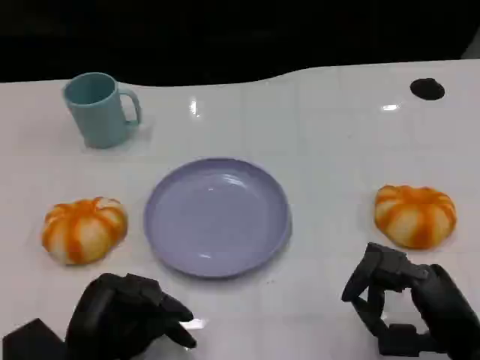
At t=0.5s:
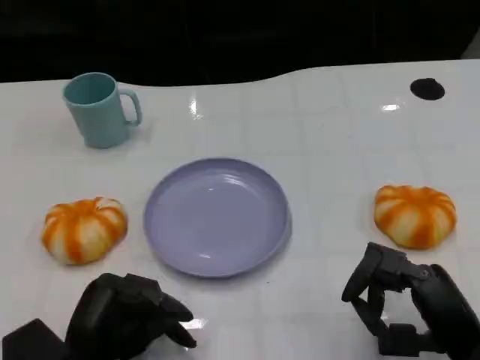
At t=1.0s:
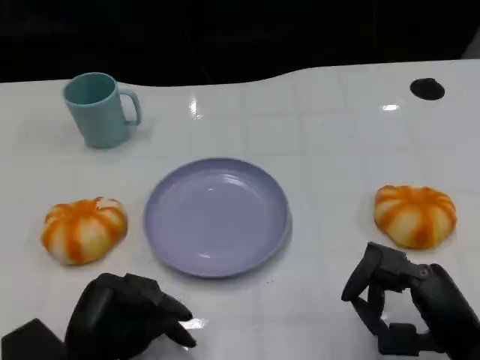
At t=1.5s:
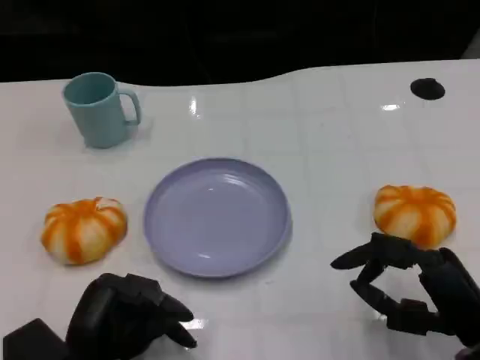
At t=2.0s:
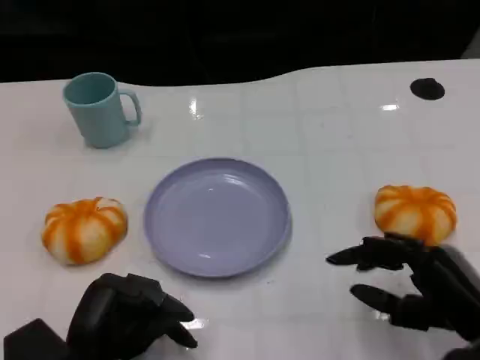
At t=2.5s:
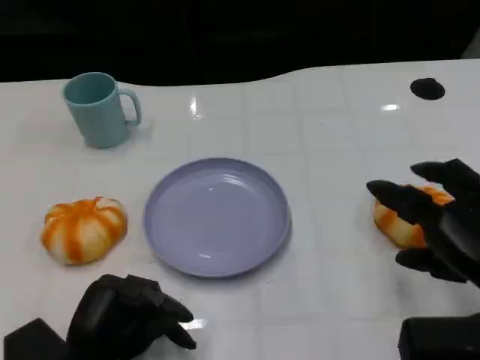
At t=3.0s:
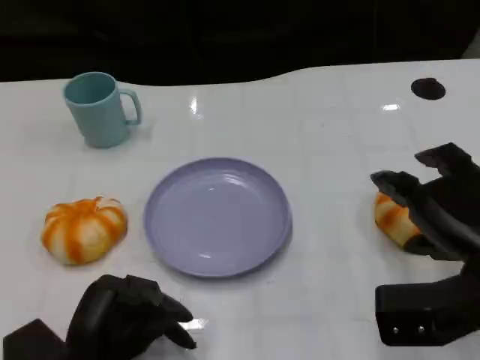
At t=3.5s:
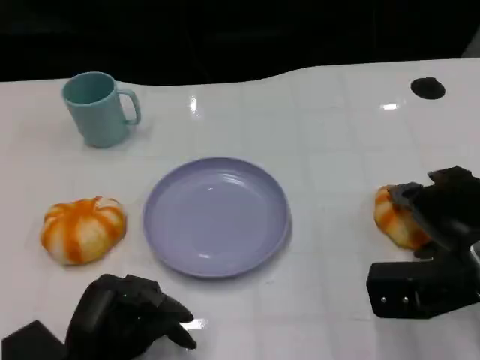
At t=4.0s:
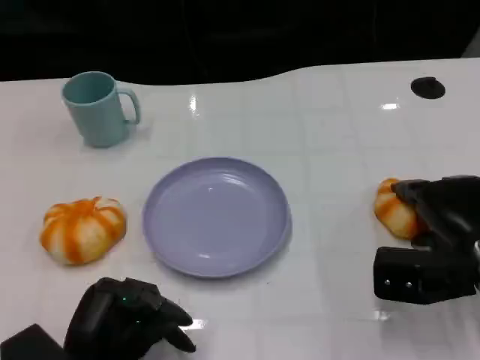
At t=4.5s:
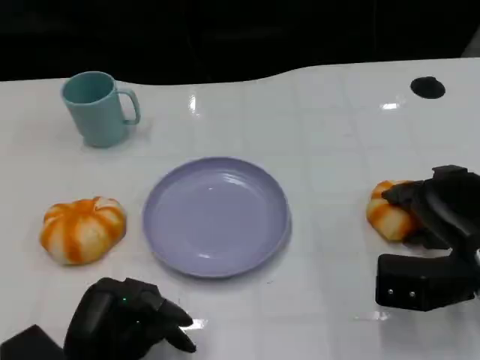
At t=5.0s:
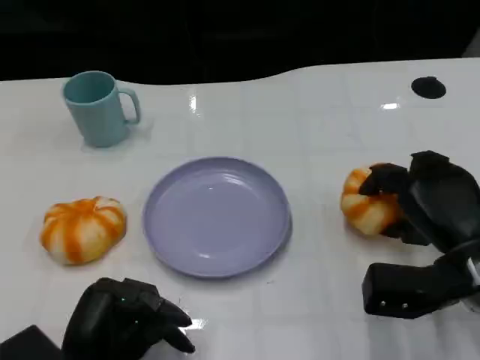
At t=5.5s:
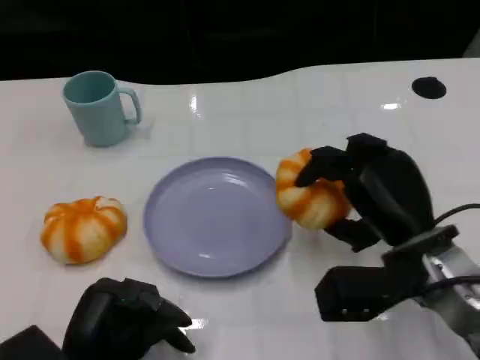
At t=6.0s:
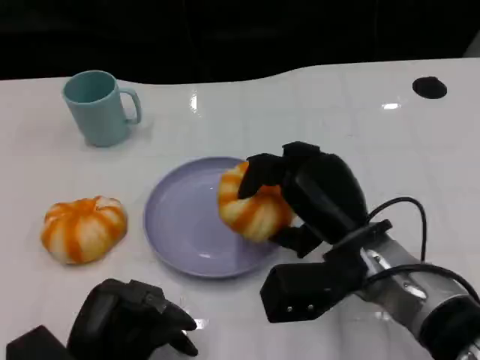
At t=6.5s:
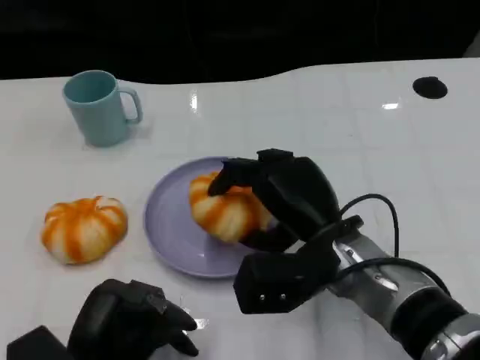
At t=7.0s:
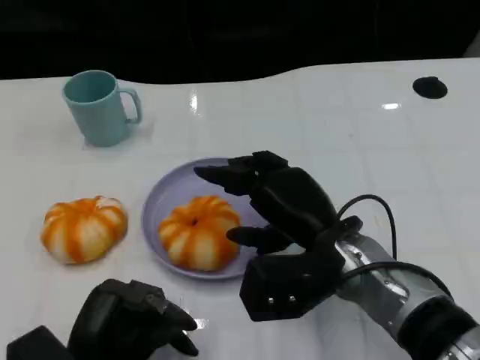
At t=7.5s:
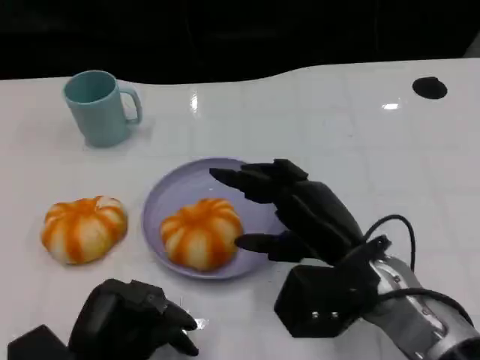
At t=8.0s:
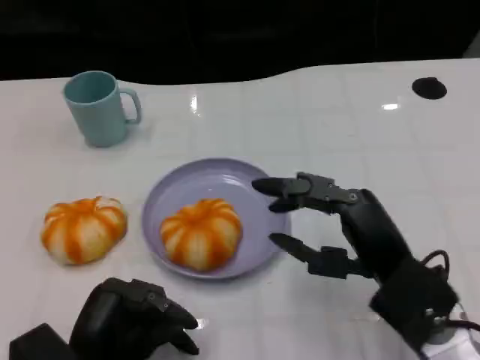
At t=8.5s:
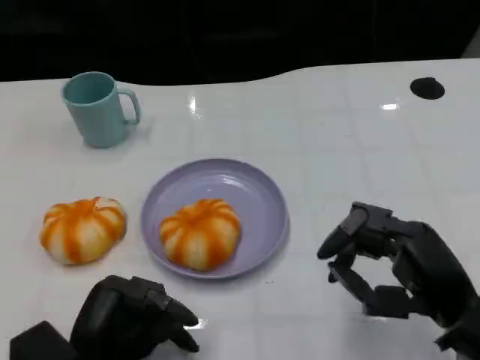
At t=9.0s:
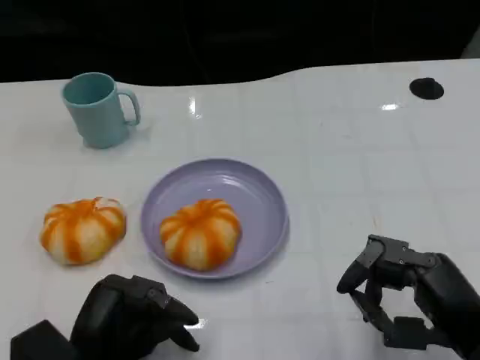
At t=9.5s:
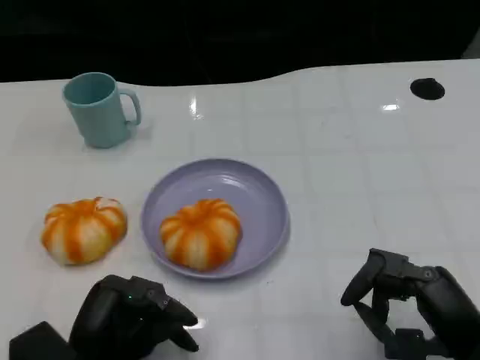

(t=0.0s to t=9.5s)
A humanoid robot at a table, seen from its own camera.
Task of the whole recording: Grasp the bread from the table and place it into the plate.
t=2.0s - t=4.0s: The right hand goes approximately 10 cm forward.
t=4.0s - t=5.5s: The right hand moves to the left, about 10 cm.
t=7.5s - t=9.5s: The right hand is displaced to the right and backward by about 15 cm.

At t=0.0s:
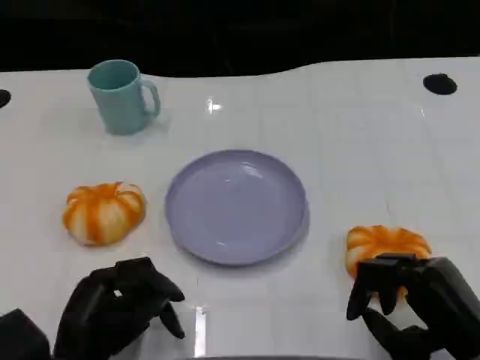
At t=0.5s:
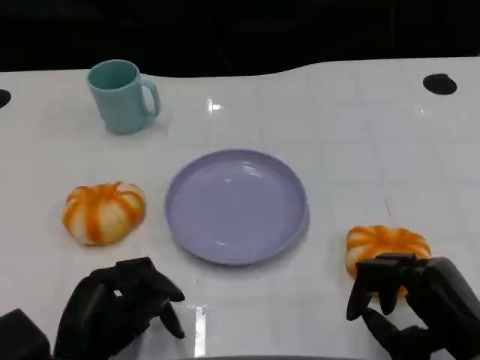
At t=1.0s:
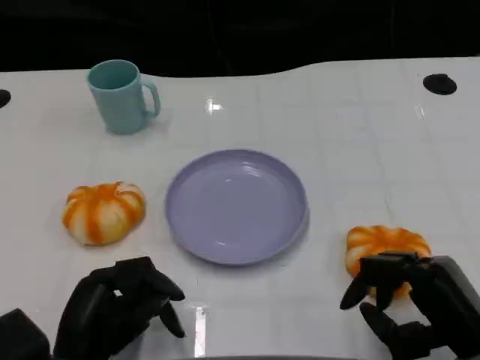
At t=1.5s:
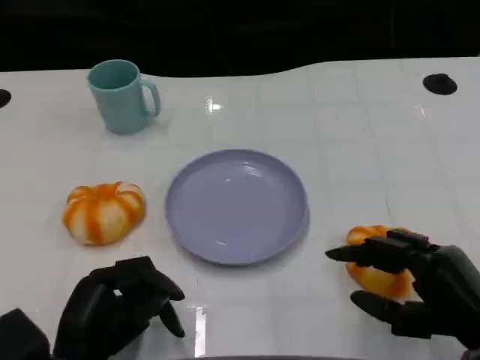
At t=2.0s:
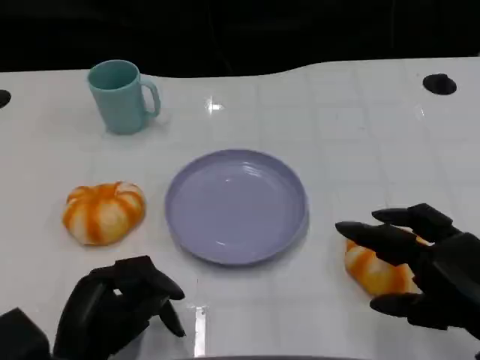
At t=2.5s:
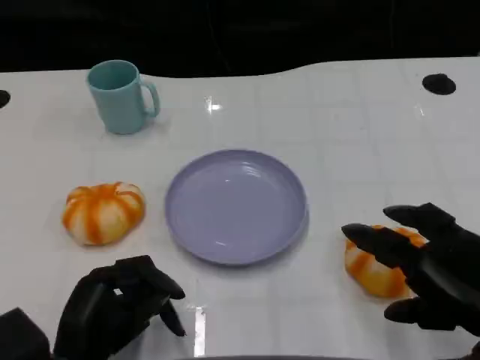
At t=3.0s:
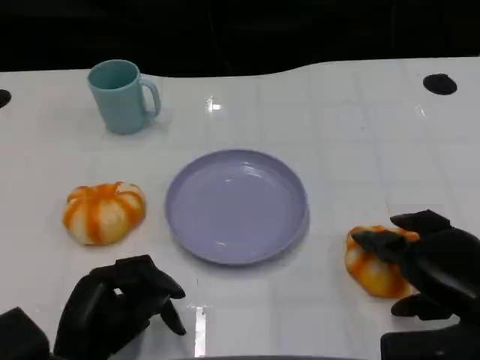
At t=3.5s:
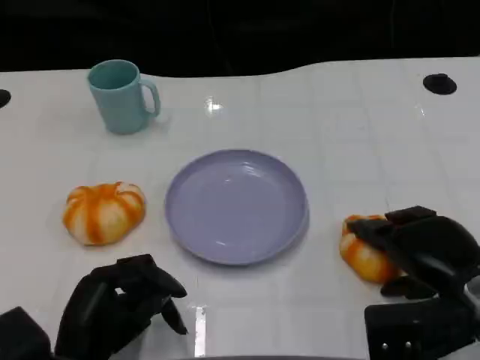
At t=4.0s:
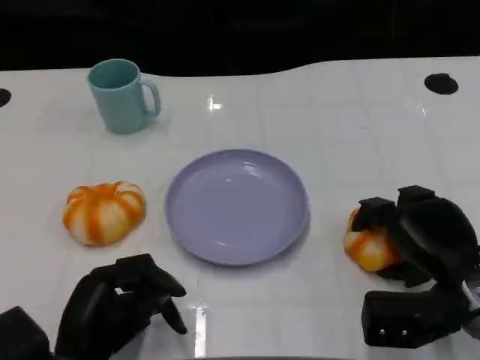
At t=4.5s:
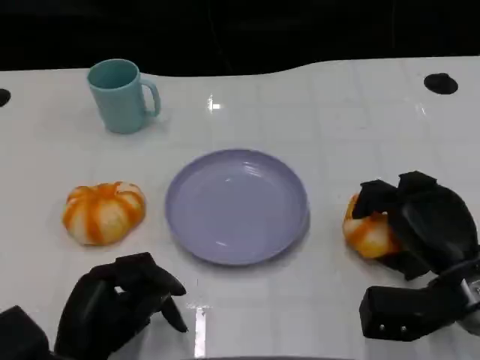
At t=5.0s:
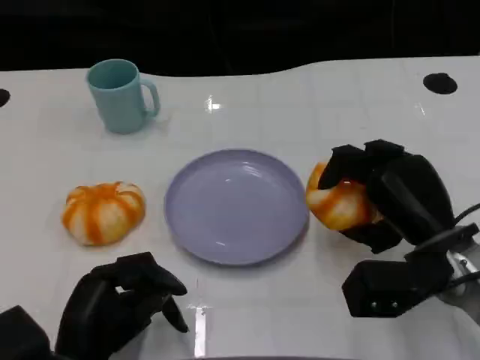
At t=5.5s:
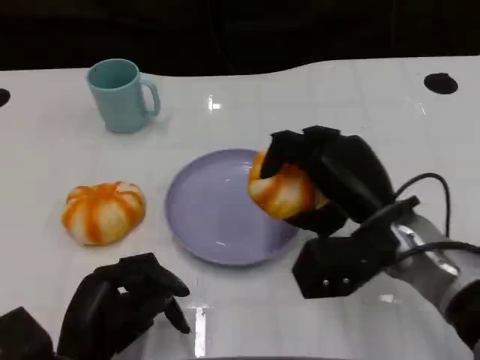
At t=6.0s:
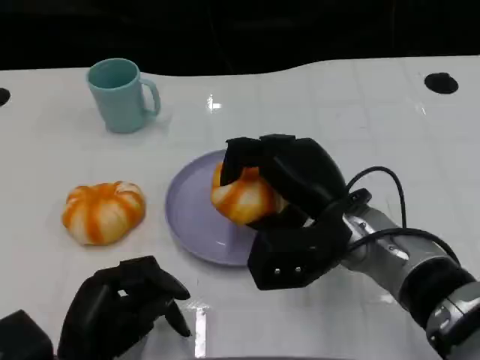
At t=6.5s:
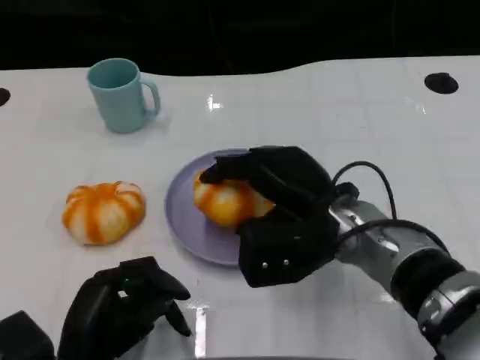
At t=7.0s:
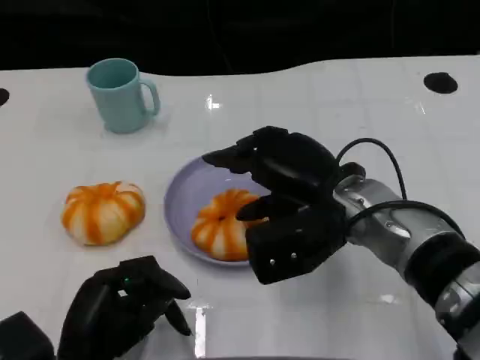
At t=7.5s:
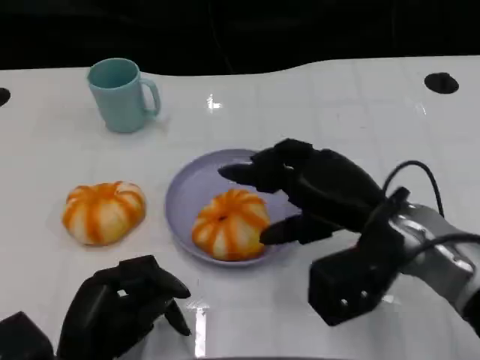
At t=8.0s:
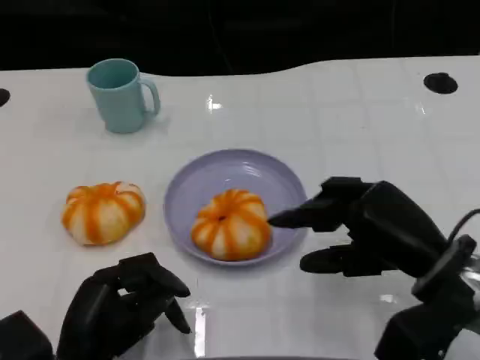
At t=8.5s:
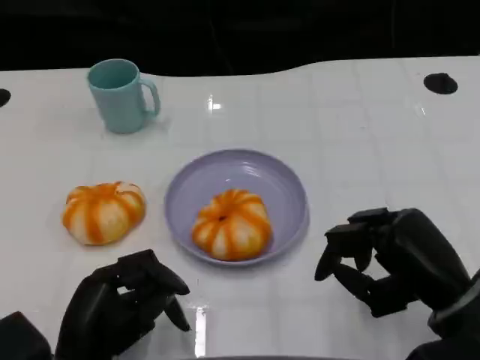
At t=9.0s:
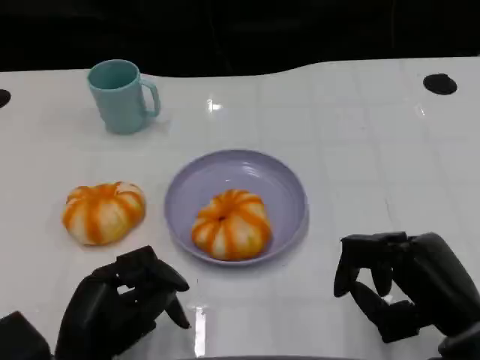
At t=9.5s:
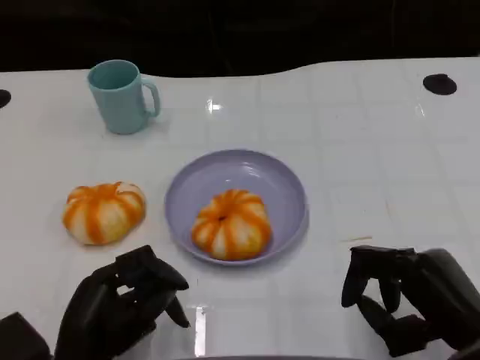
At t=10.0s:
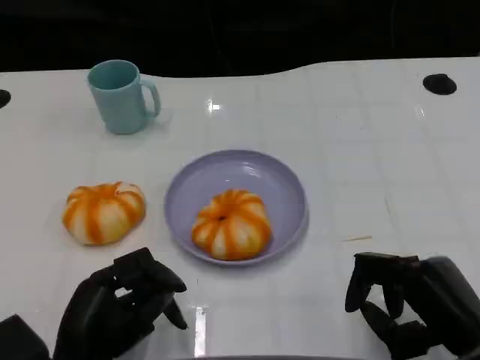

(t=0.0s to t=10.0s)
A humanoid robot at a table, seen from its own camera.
Task of the whole recording: Grasp the bread from the table and place it into the plate.
t=0.0s - t=2.0s: The right hand heads upward, covering some 5 cm.
t=2.0s - t=4.0s: The right hand heads forward and downward, covering some 10 cm.
t=4.0s - t=6.0s: The right hand moves to the left and upward, approximately 15 cm.
t=6.0s - t=8.0s: The right hand shifts approximately 10 cm to the right.
t=8.0s - t=10.0s: The right hand moves backward, approximately 5 cm.

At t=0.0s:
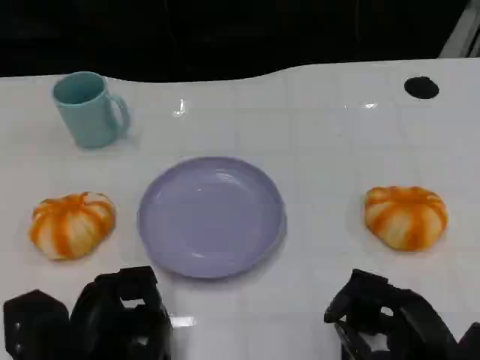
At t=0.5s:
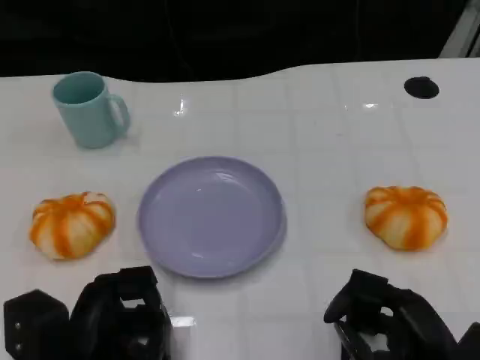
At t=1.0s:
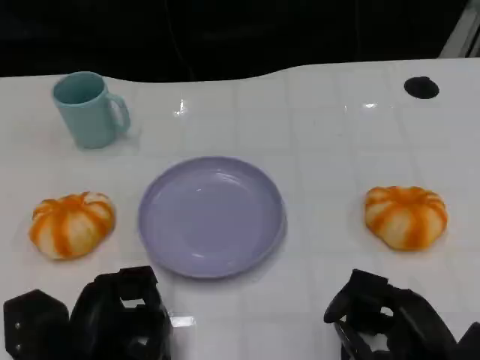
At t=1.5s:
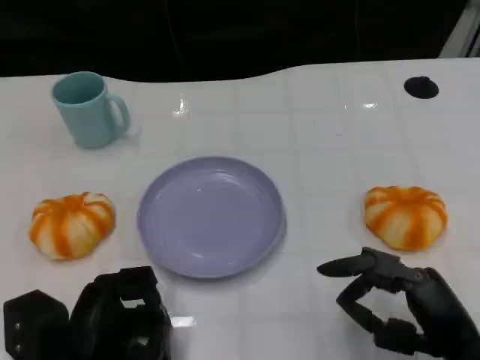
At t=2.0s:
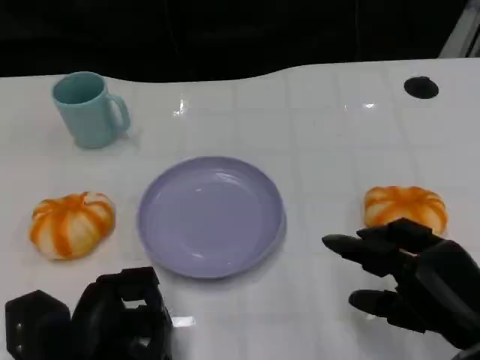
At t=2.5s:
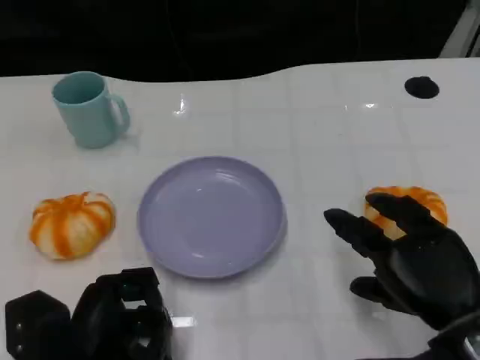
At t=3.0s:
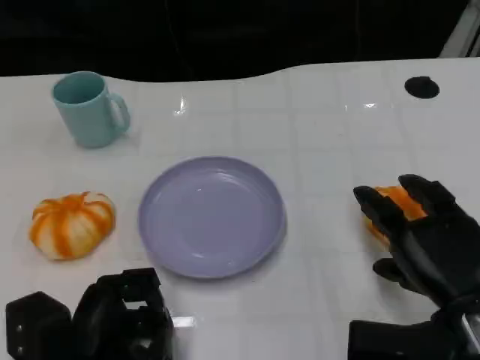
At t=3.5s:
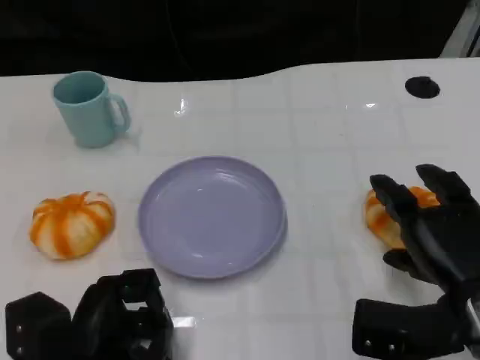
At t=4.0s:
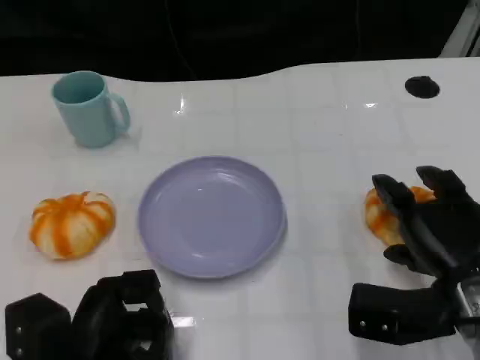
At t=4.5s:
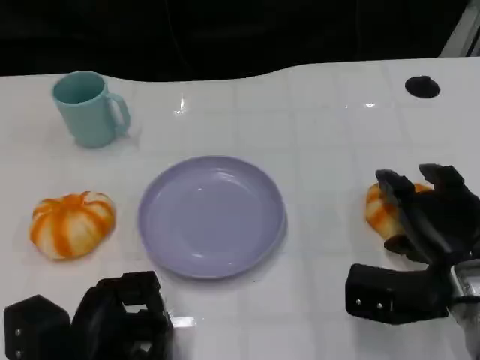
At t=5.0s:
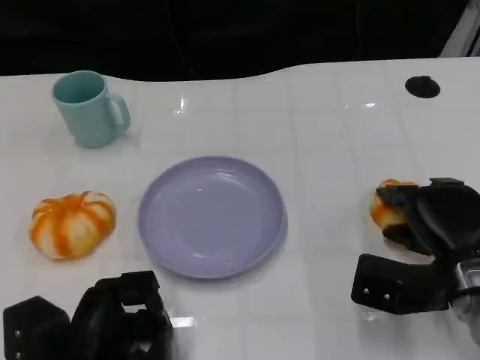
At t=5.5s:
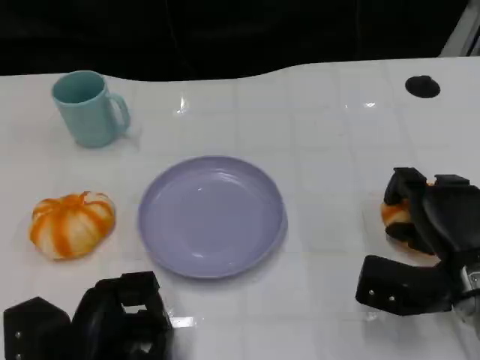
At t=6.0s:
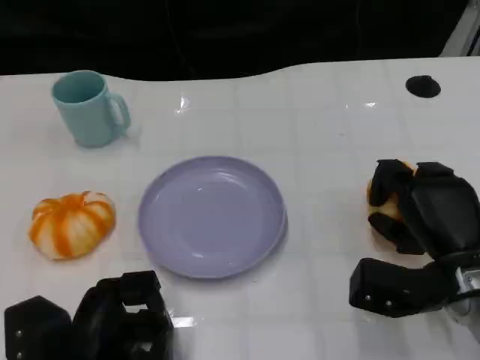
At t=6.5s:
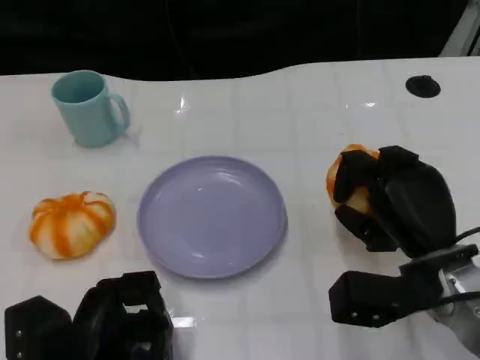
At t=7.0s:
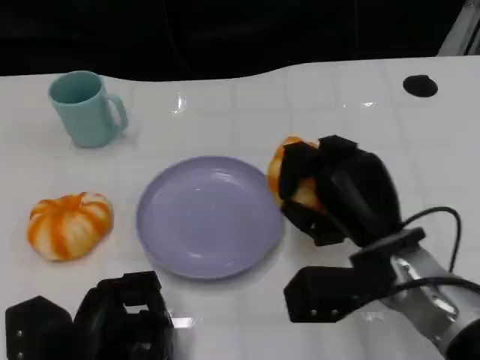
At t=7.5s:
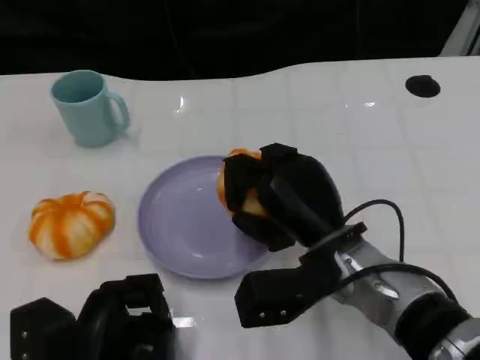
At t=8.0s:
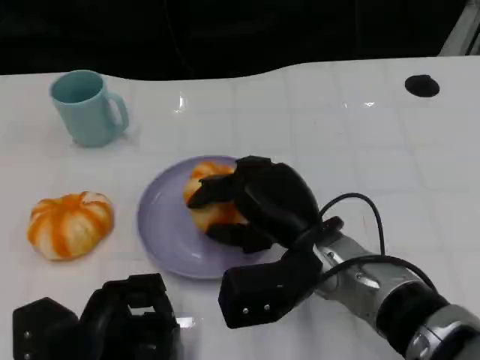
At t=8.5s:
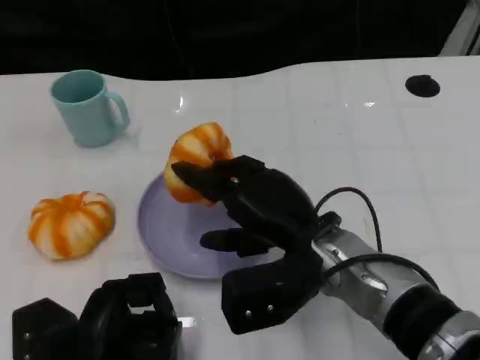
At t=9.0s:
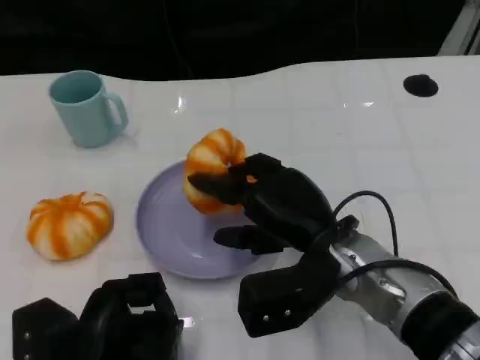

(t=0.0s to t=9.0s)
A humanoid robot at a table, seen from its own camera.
Task of the whole recording: Grasp the bread from the table and place it into the plate.
t=0.0s - t=2.0s: The right hand ends up some 5 cm from where it was.
t=2.0s - t=4.5s: The right hand goes some 10 cm forward.
t=4.5s - t=7.0s: The right hand goes roughly 10 cm to the left.
